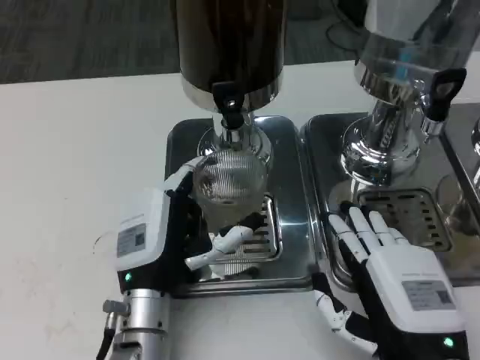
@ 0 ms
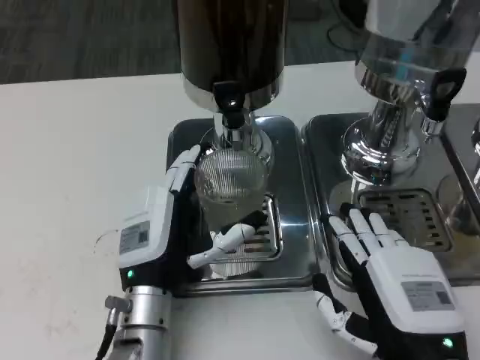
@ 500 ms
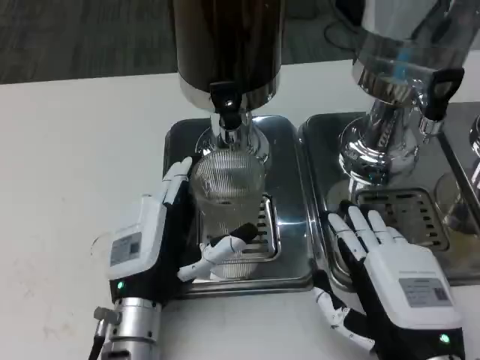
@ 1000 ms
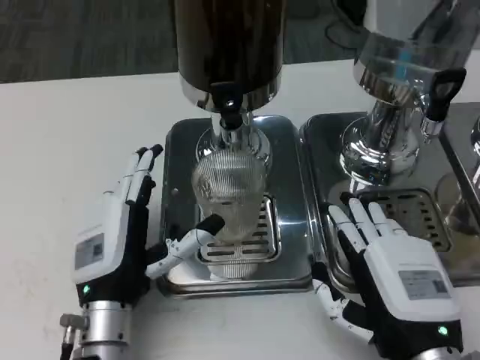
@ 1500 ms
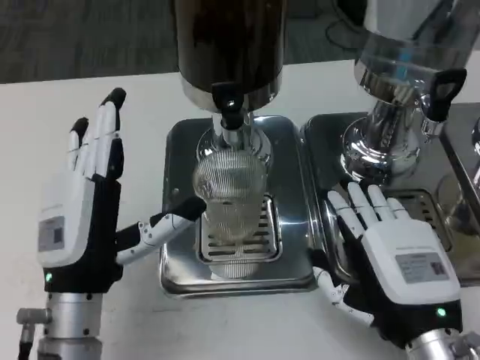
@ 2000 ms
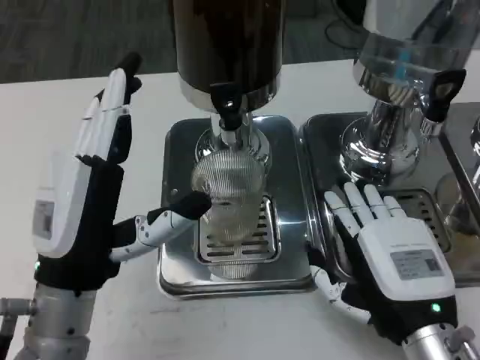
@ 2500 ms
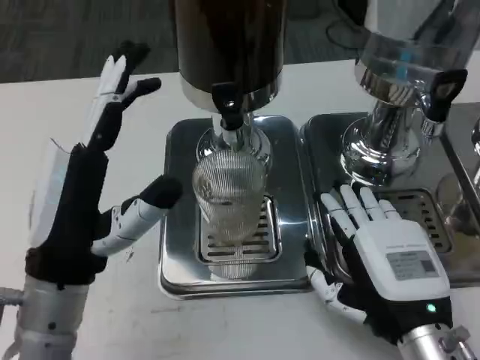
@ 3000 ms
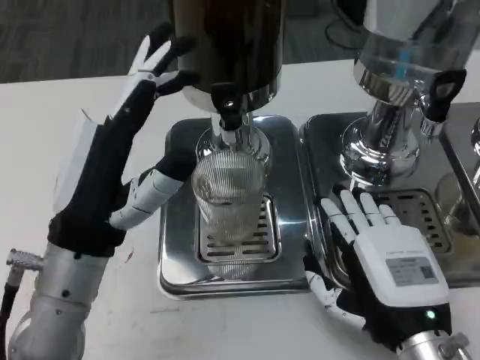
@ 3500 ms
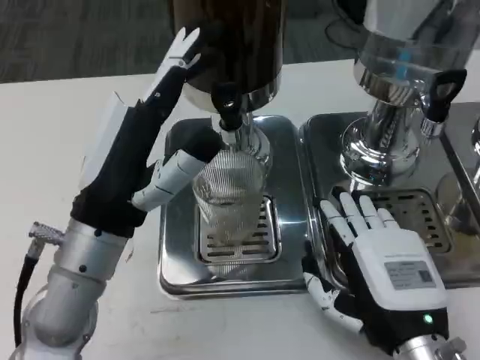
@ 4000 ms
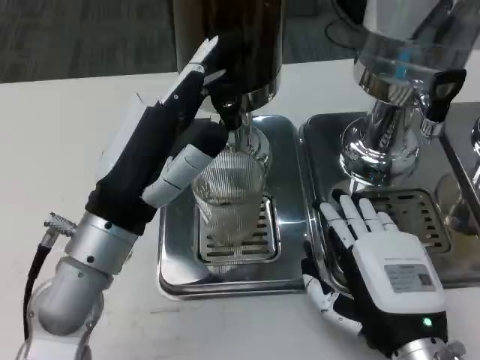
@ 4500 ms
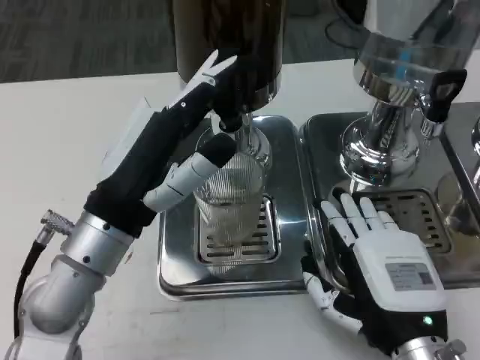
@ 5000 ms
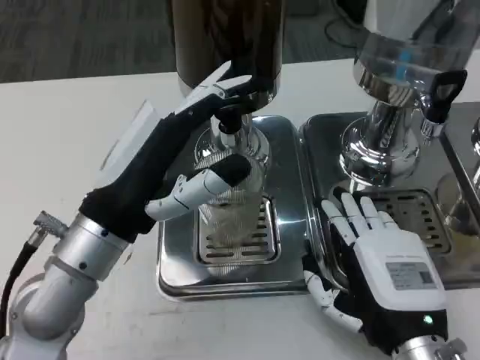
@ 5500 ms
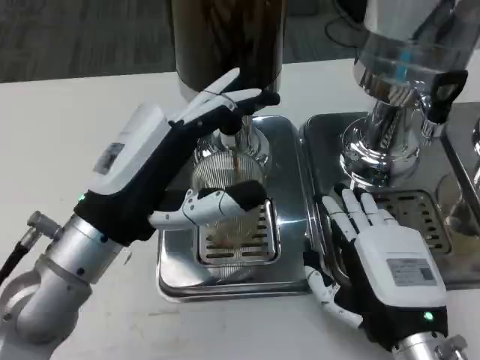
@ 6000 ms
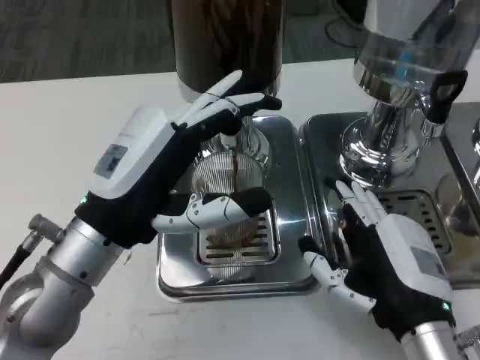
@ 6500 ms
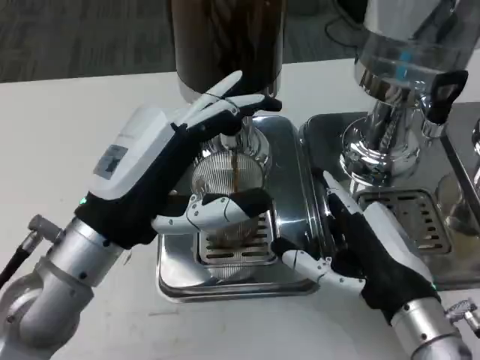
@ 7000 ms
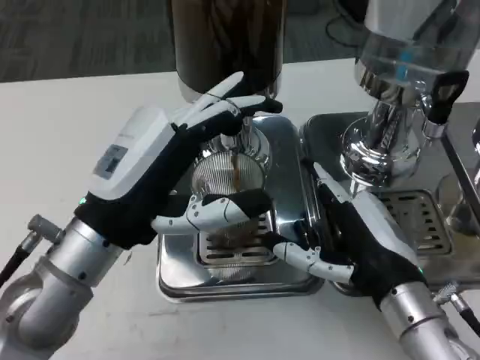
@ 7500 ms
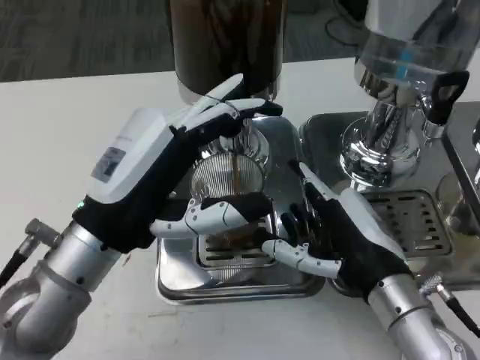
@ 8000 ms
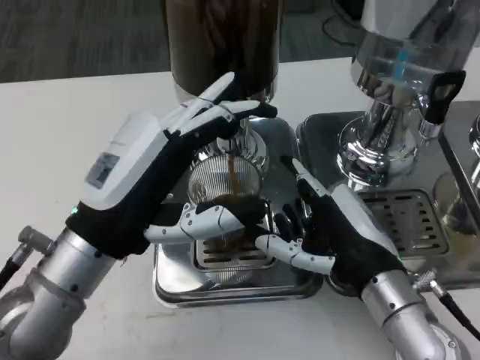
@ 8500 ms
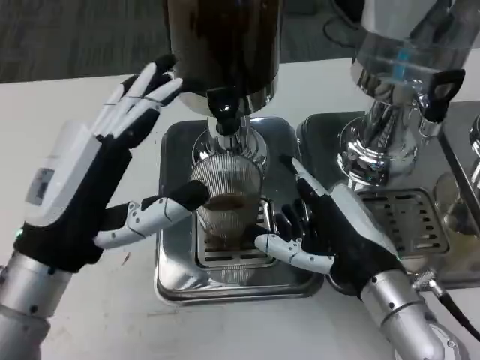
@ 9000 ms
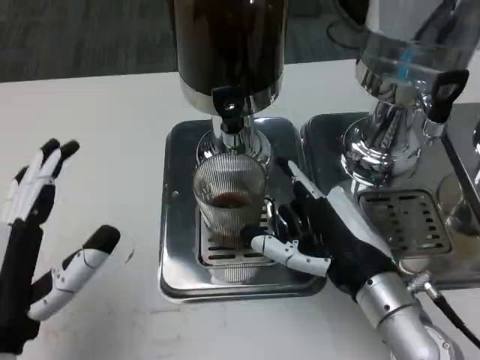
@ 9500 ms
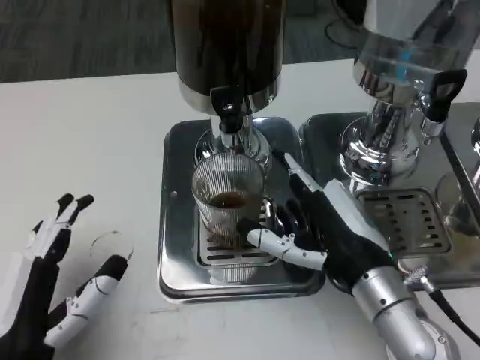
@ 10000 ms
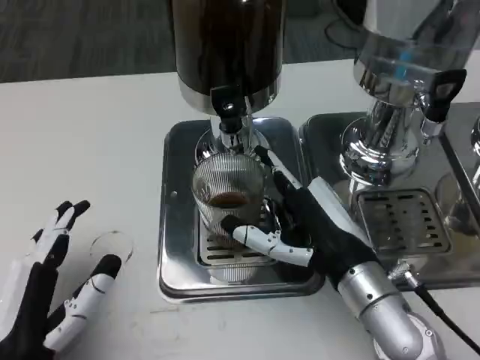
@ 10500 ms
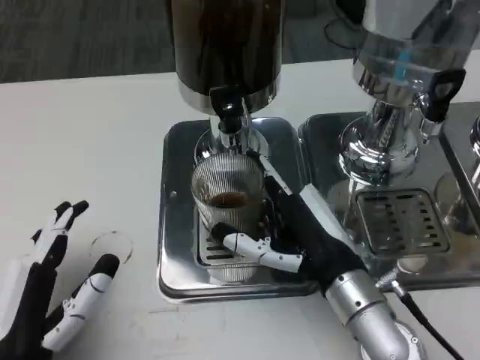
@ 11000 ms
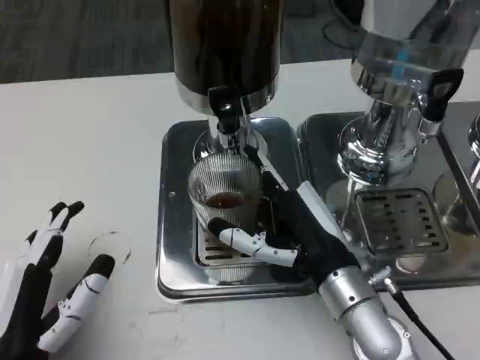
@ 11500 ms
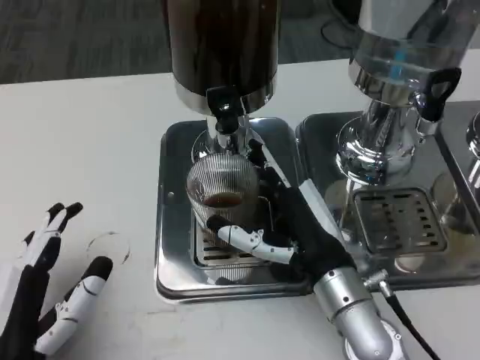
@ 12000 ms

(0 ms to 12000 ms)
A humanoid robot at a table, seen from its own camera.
Task of the whole recording: Grasp the cup under the faucet to collect the drink, then remove the cup.
0 ms - 2000 ms: The left hand is displaced to the left by approximately 5 cm.
2000 ms - 4000 ms: The left hand moves upward, approximately 5 cm.
6000 ms - 8000 ms: The right hand travels forward by about 5 cm.
8000 ms - 10000 ms: The left hand moves backward, downward and to the left, some 15 cm.

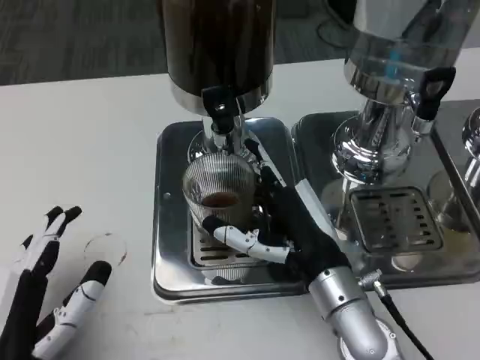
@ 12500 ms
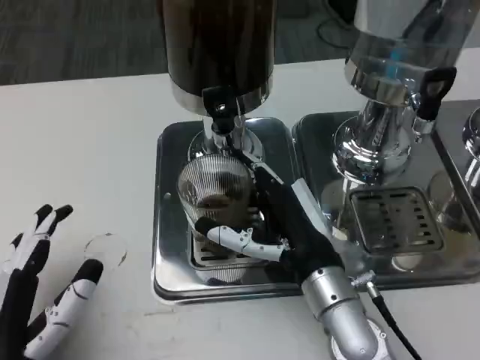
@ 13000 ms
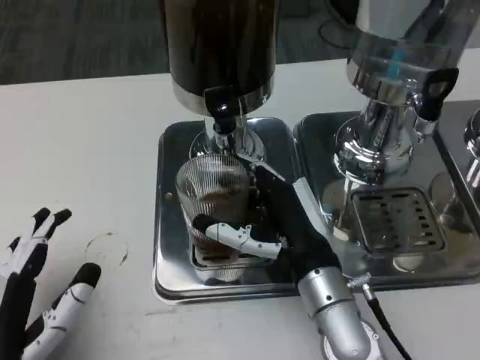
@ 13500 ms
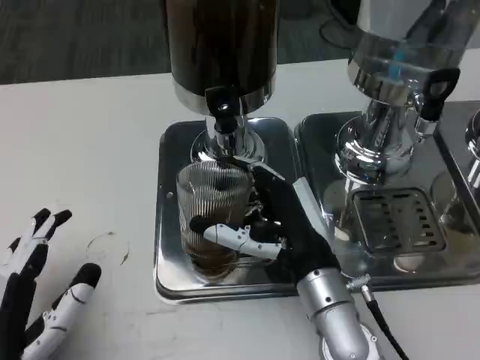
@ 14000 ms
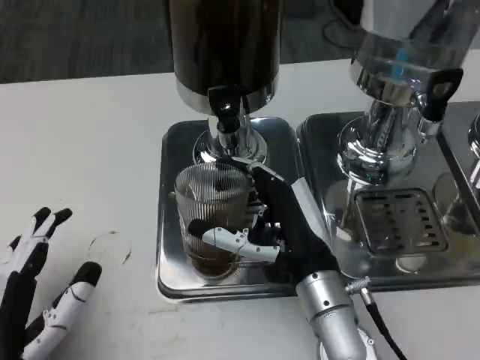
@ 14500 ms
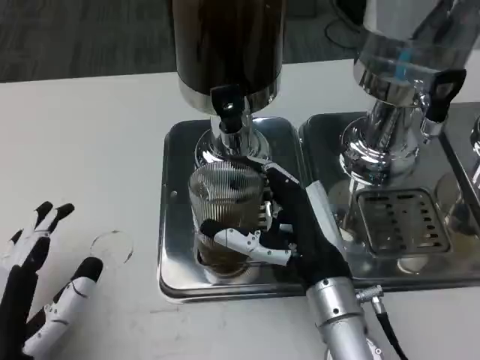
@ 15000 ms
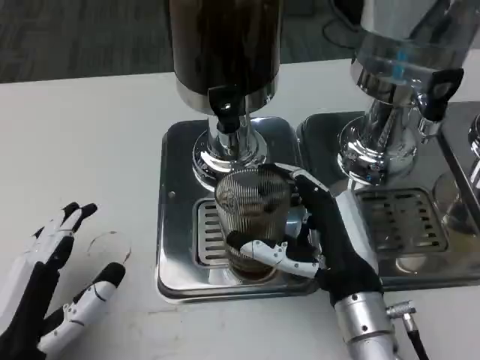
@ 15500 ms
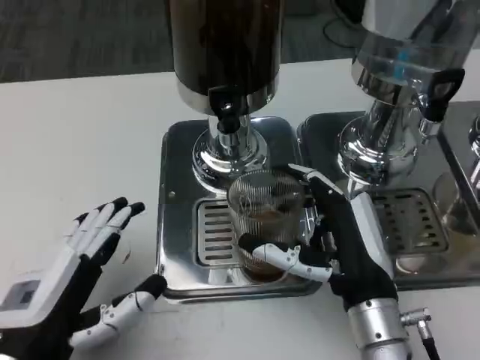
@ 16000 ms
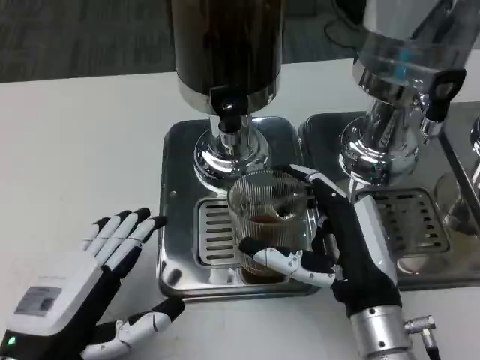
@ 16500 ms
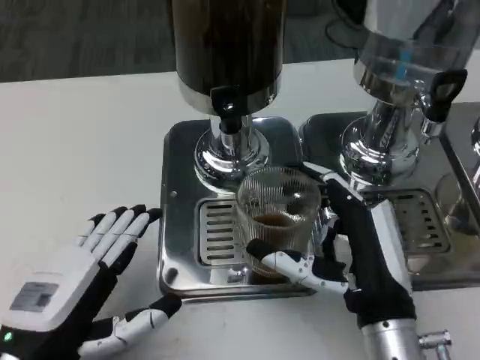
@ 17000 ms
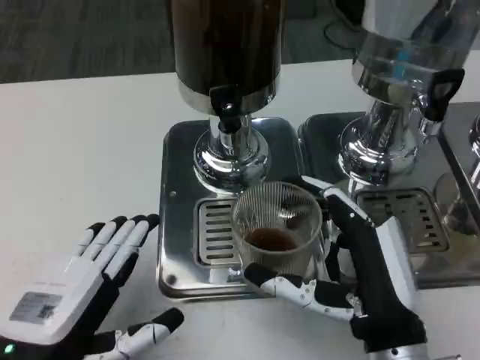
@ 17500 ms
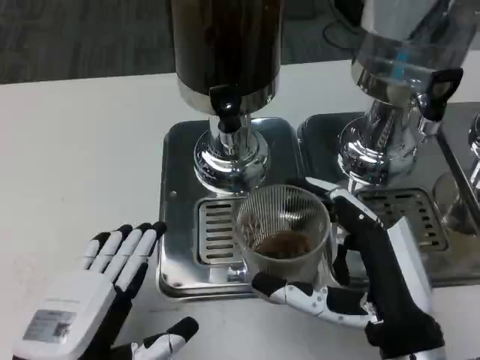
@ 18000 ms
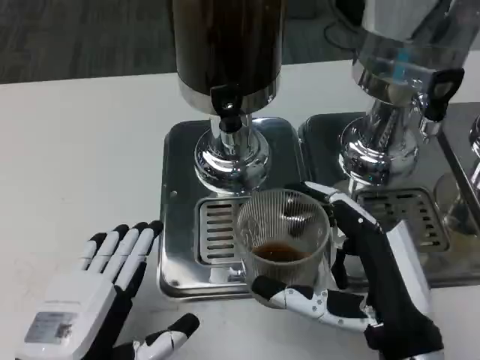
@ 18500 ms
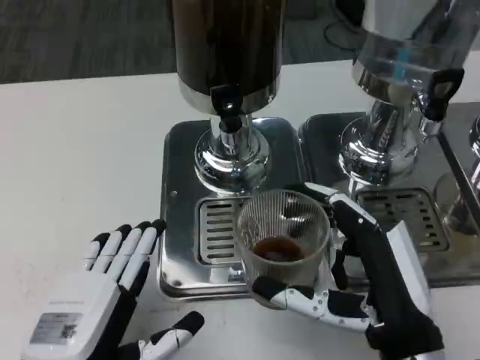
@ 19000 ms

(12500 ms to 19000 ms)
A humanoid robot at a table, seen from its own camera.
Task of the whole recording: Grasp the cup under the faucet to collect the drink, then remove the cup.
14500 ms - 17000 ms: The right hand goes roughly 5 cm backward.
17000 ms - 19000 ms: The left hand changes place by roughly 5 cm.

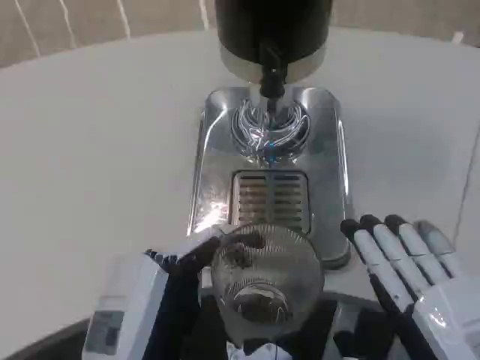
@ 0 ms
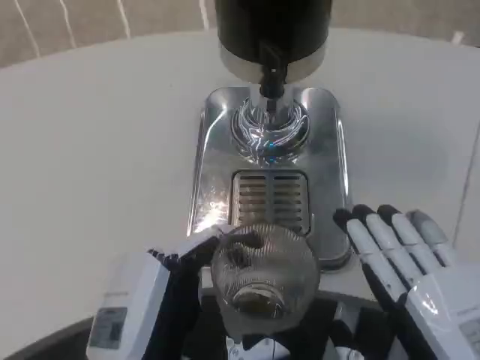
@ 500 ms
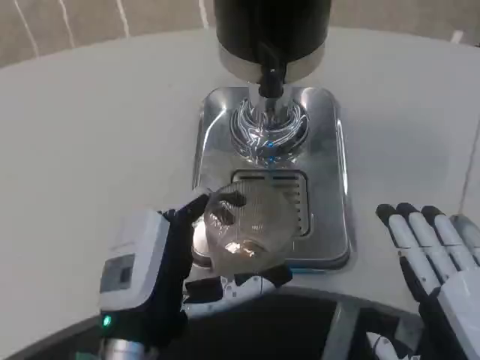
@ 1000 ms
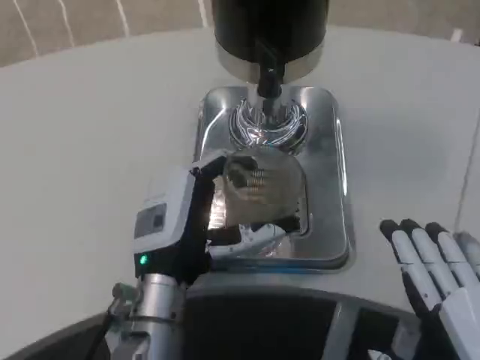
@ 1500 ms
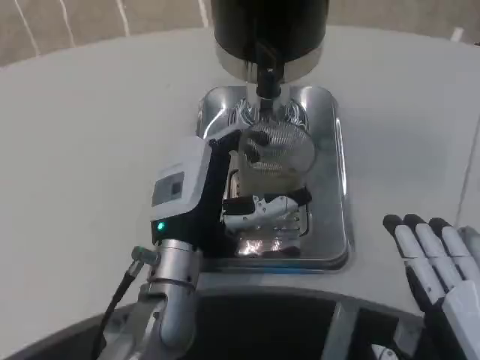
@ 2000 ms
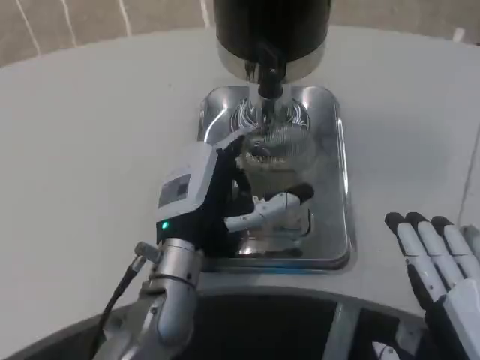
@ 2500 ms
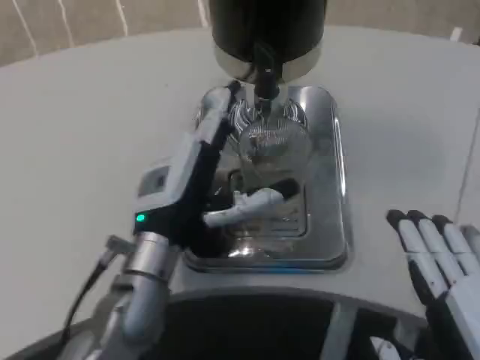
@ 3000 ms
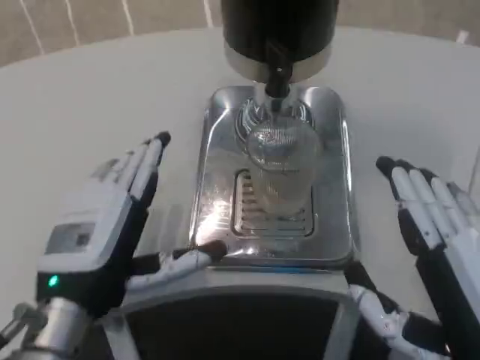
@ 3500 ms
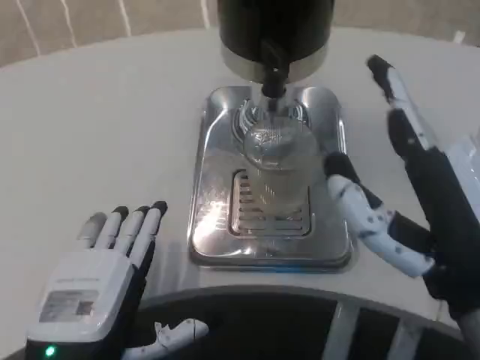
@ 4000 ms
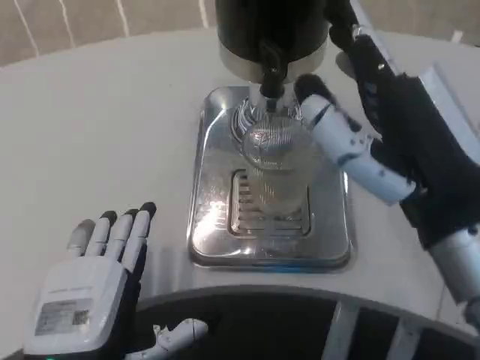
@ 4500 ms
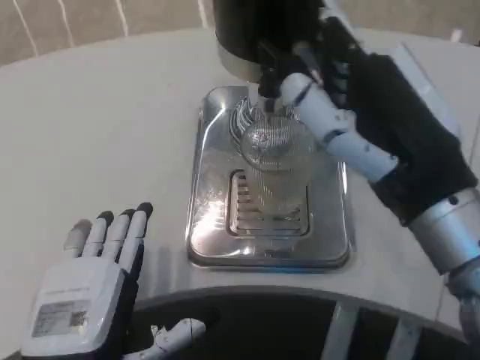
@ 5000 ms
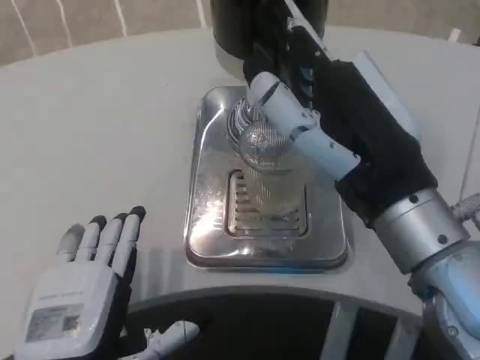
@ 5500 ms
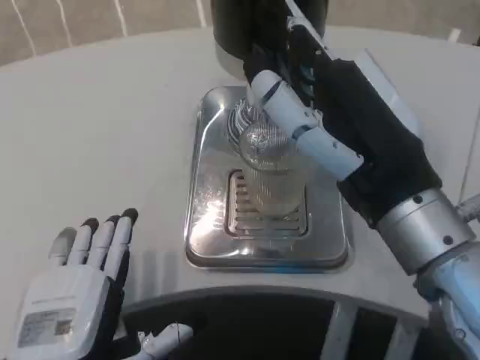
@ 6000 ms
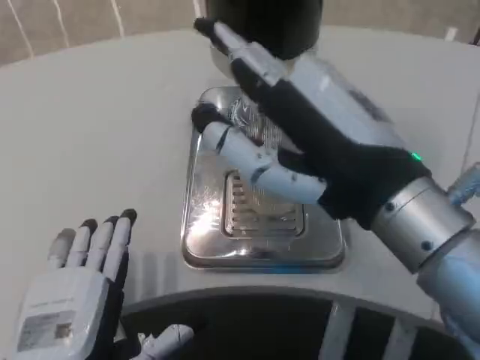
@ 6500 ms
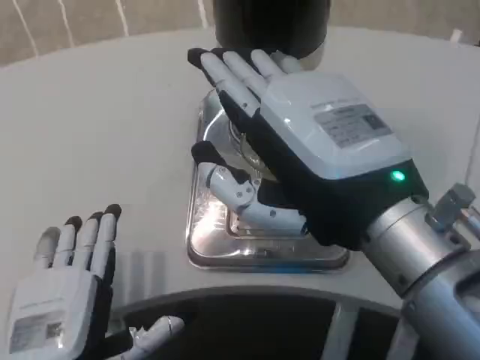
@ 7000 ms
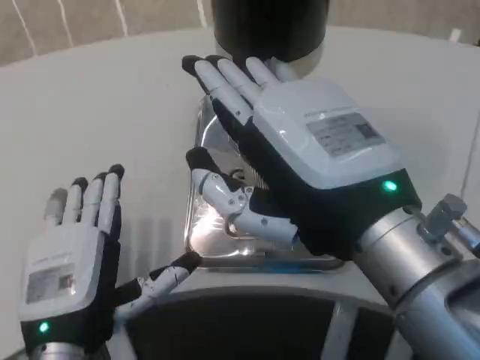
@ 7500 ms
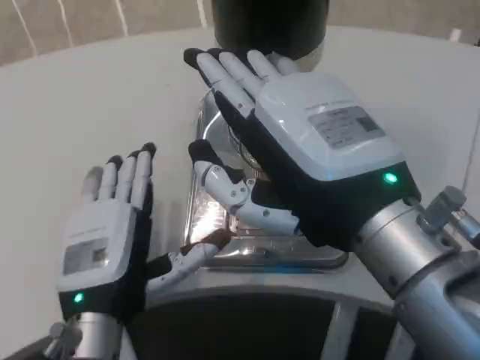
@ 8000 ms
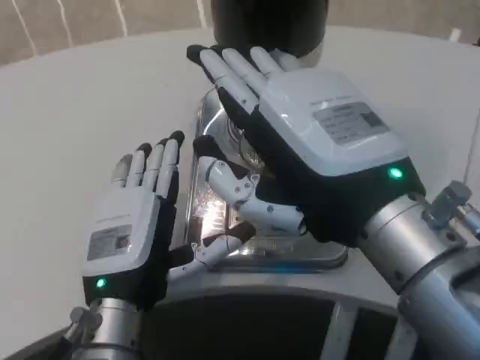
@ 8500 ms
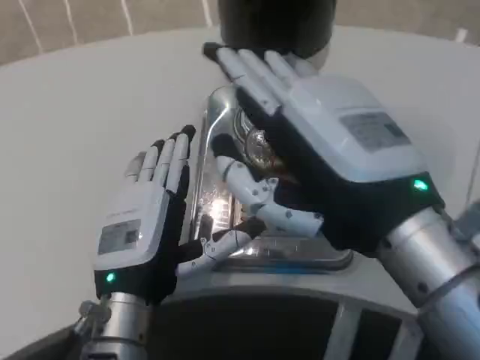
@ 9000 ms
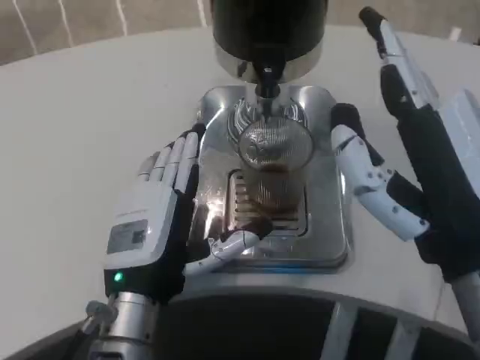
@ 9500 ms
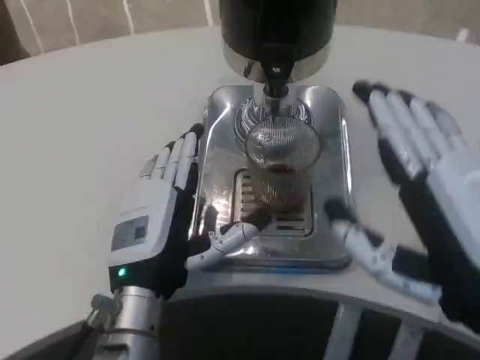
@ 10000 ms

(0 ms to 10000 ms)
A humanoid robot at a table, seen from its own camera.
Task of the whole recording: Grasp the cup under the faucet to collect the drink, then remove the cup.
0 ms - 2000 ms: The left hand goes roughly 15 cm forward.
2000 ms - 4000 ms: The right hand heads upward and forward, covering about 10 cm. The left hand moves backward and to the left, roughly 15 cm.
4000 ms - 6000 ms: The right hand moves forward, about 5 cm.
6000 ms - 8000 ms: The left hand heads forward, covering some 10 cm.
8000 ms - 10000 ms: The right hand travels to the right and downward by roughly 10 cm.
